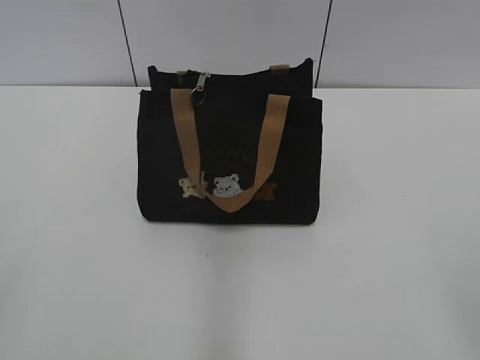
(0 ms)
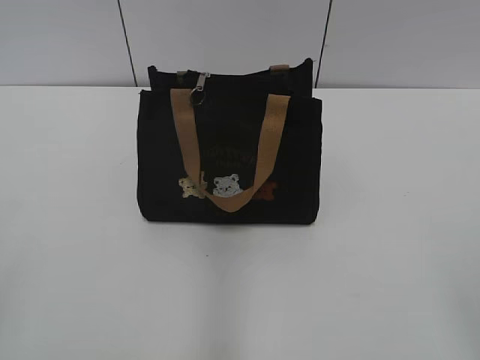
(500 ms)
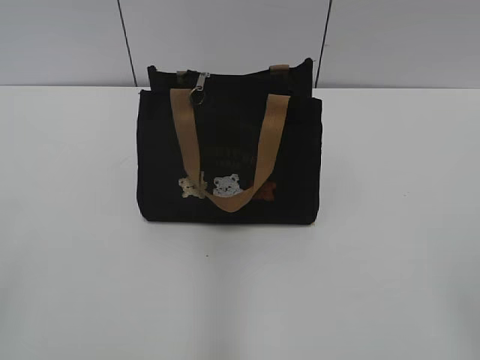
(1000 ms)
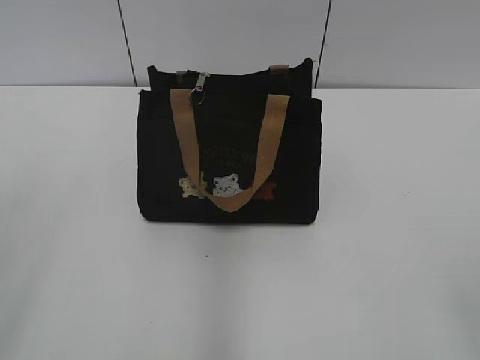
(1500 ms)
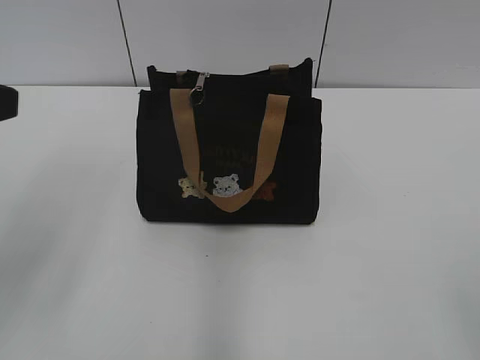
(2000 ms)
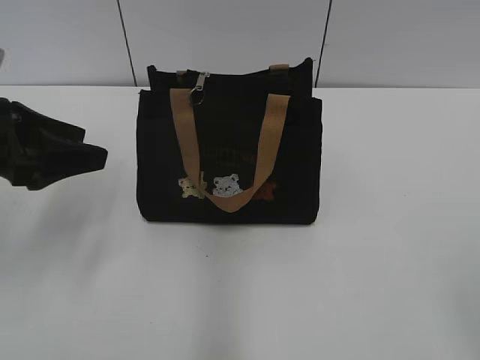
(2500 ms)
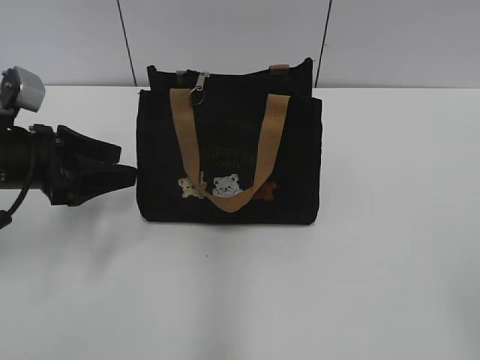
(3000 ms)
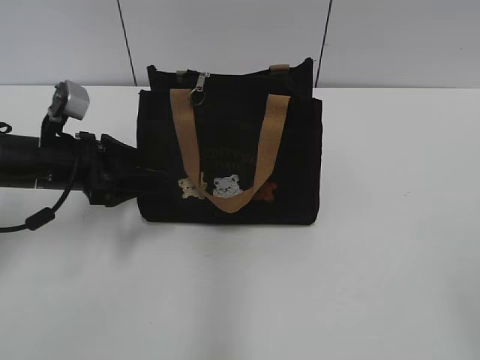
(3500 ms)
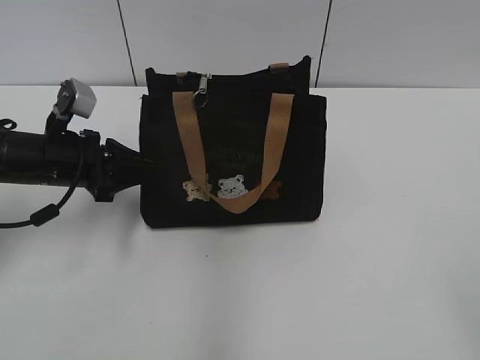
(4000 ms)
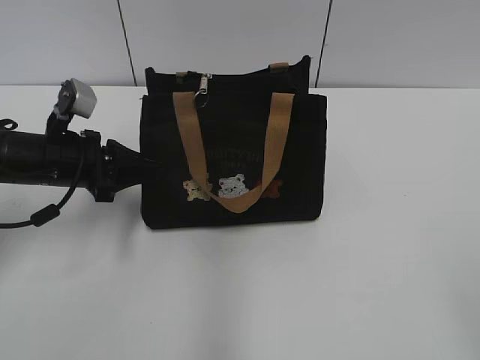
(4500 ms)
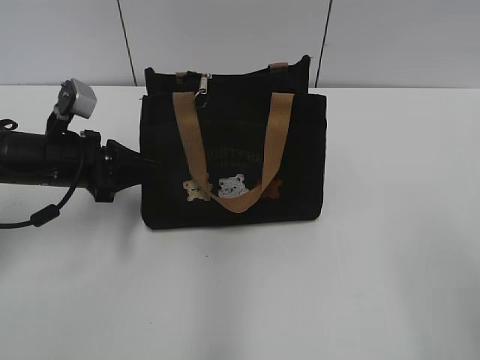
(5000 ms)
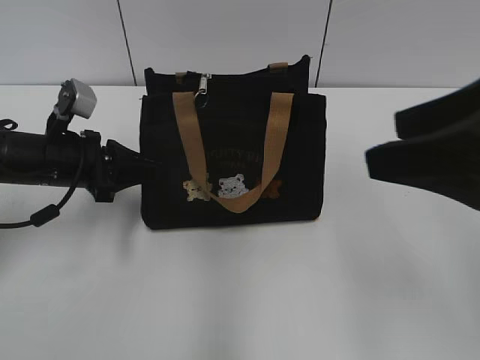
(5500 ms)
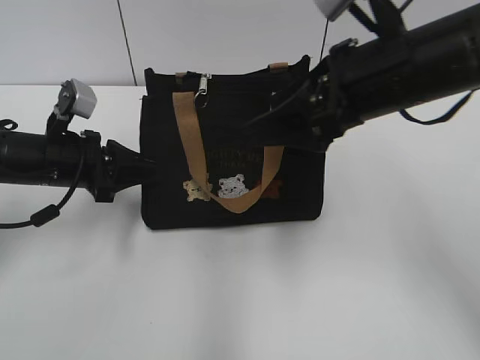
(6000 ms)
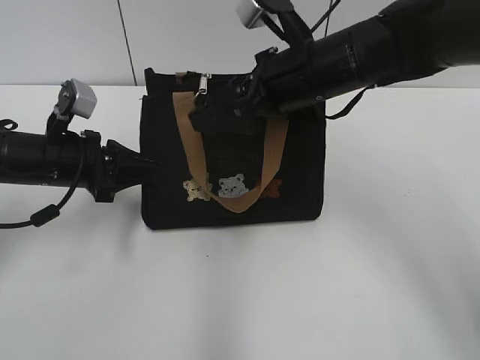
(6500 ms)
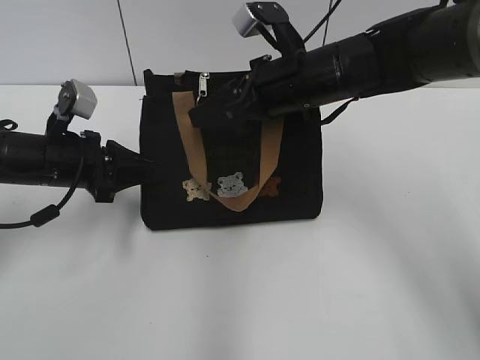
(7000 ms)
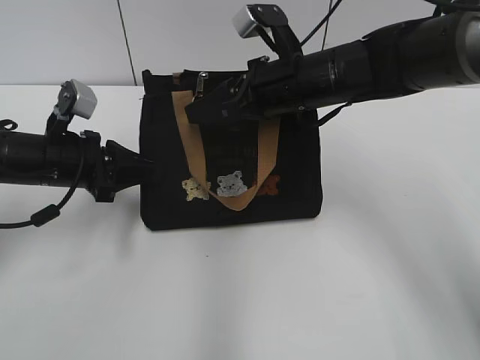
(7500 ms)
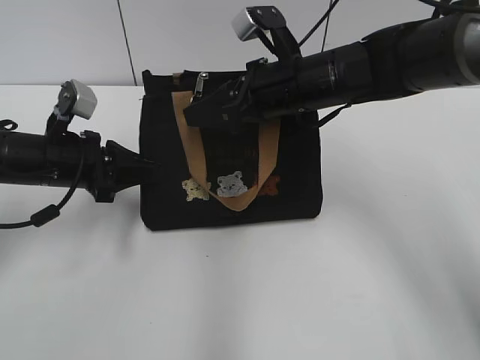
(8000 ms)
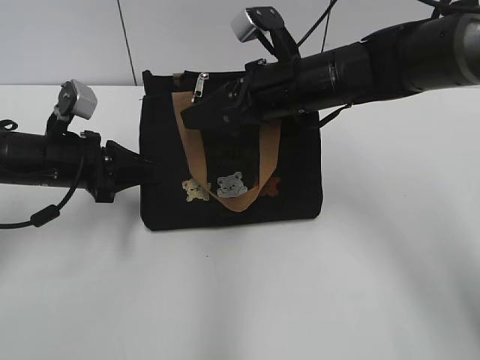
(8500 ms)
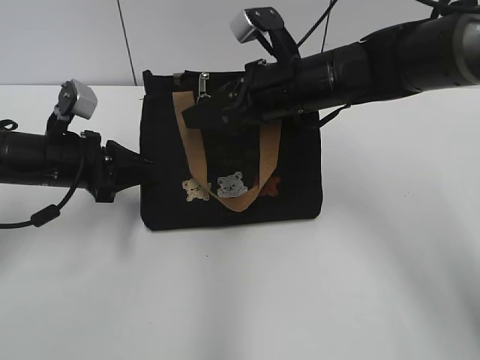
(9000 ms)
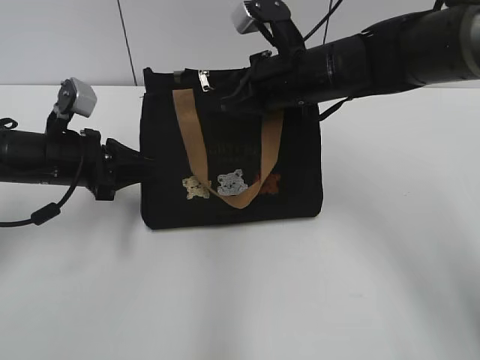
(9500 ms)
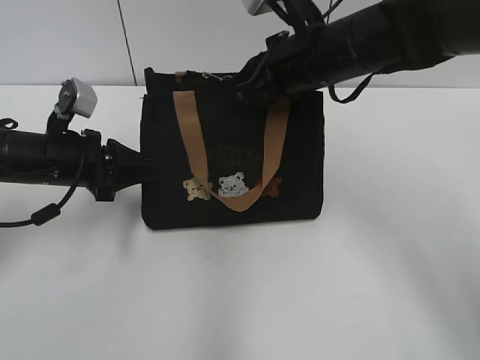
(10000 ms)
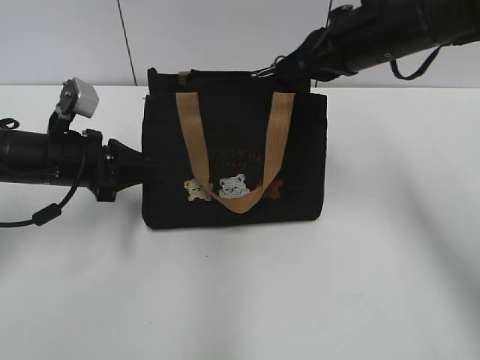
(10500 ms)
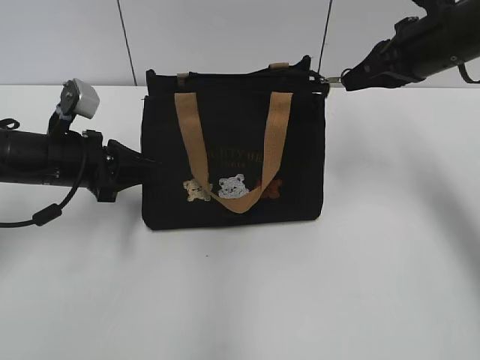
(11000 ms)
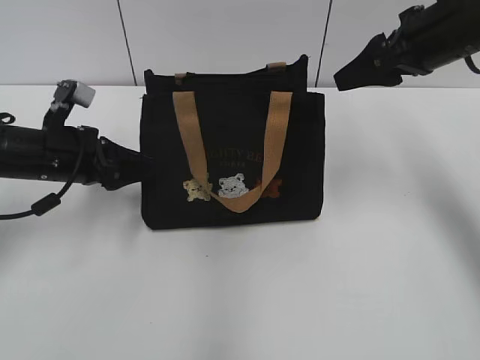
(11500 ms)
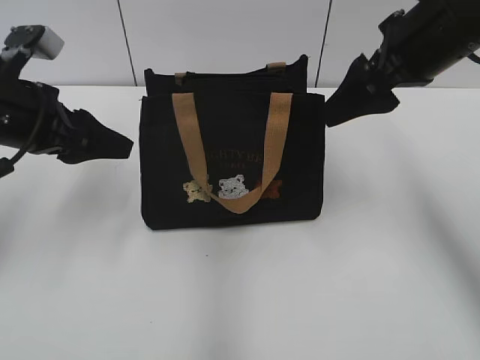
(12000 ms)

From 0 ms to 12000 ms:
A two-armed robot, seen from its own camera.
Step, from 0 ms to 11000 ms: Pull open the zipper with your right hand.
From 2000 ms to 4000 ms: The left gripper is displaced downward and forward by approximately 25 cm, and closes its fingers.
From 4000 ms to 6000 ms: The right gripper shifts approximately 30 cm forward and to the left.
From 6000 ms to 8000 ms: The right gripper is displaced forward, downward and to the left by approximately 15 cm.
From 8000 ms to 10000 ms: The right gripper closes up.
From 10000 ms to 12000 ms: The left gripper shifts roughly 10 cm upward, and opens its fingers, while the right gripper is displaced to the right and upward by roughly 10 cm, and opens.

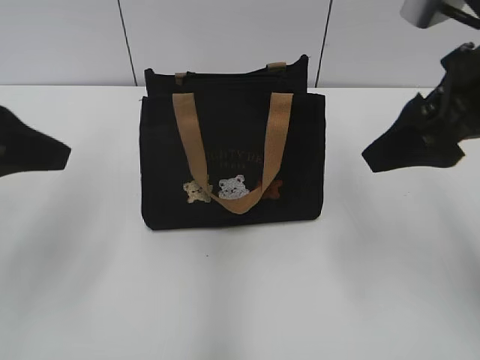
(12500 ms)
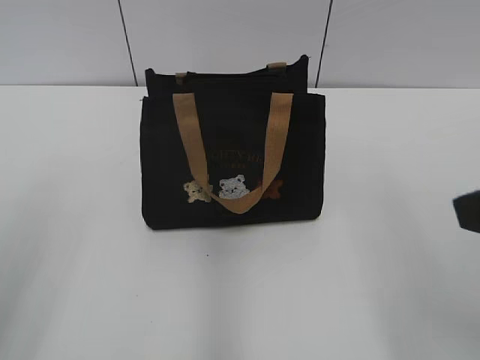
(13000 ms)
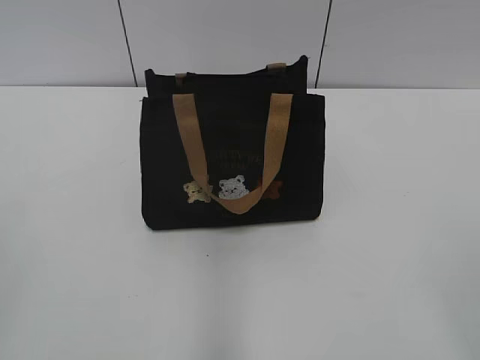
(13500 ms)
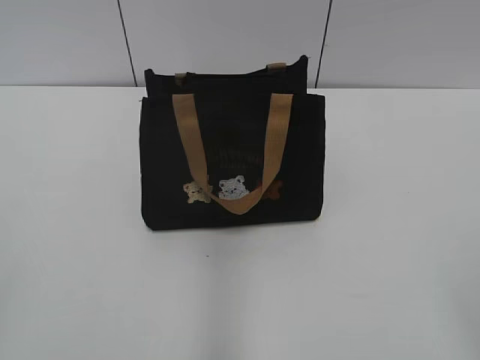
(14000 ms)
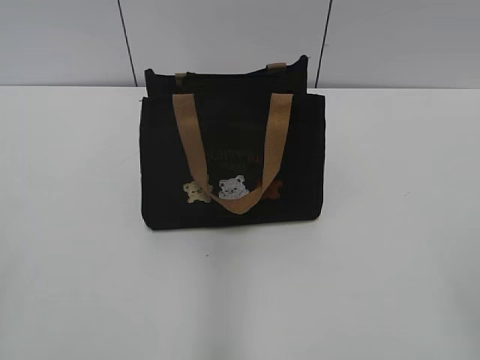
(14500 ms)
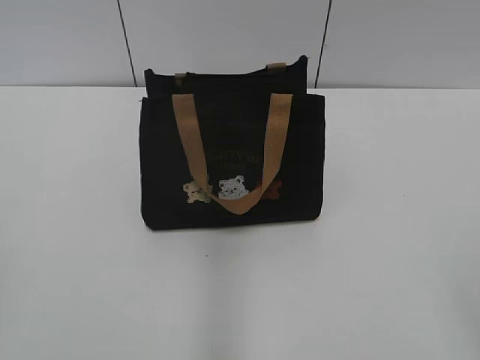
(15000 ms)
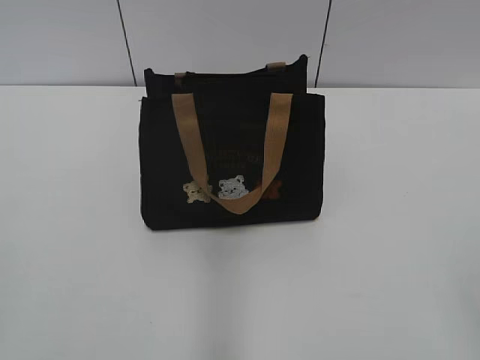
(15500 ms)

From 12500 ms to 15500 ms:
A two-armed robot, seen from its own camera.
From 12500 ms to 14000 ms: The two grippers go approximately 25 cm backward.

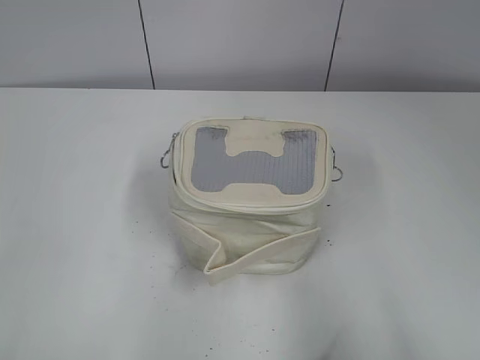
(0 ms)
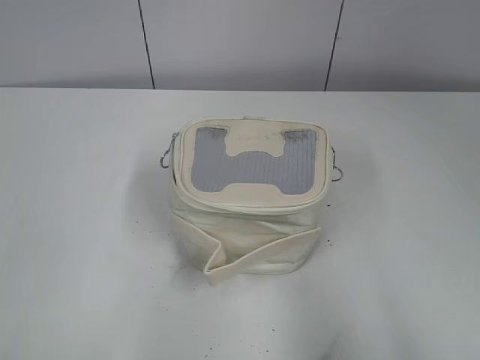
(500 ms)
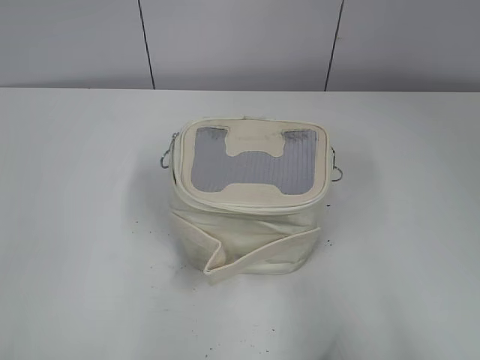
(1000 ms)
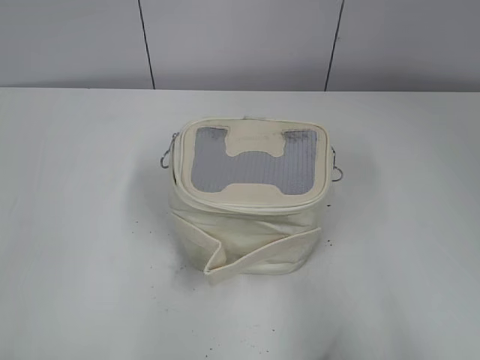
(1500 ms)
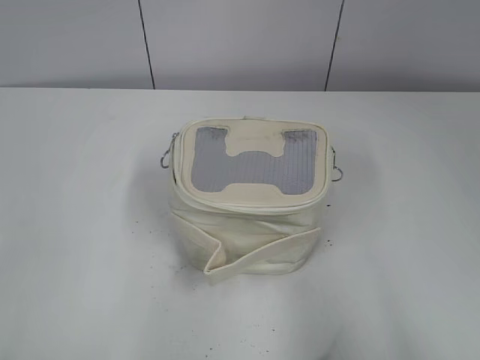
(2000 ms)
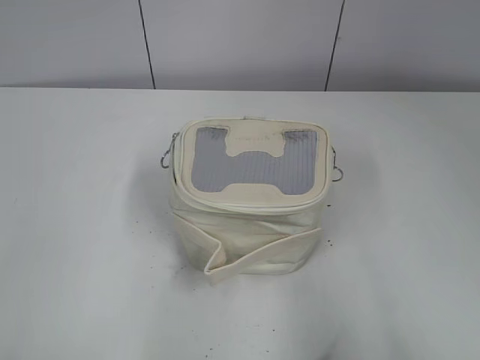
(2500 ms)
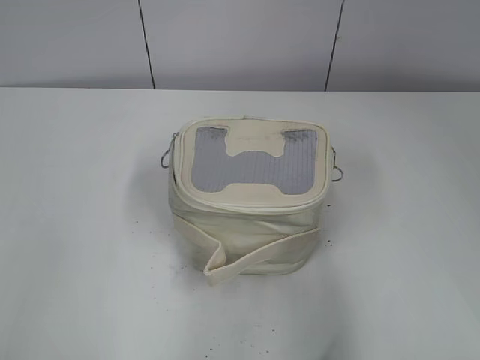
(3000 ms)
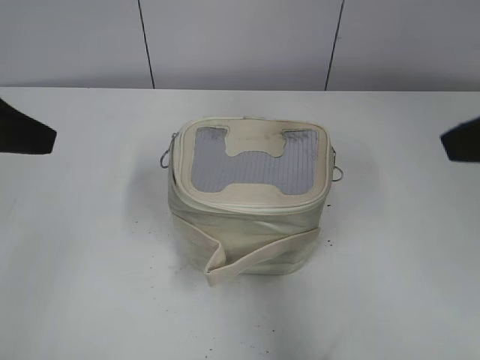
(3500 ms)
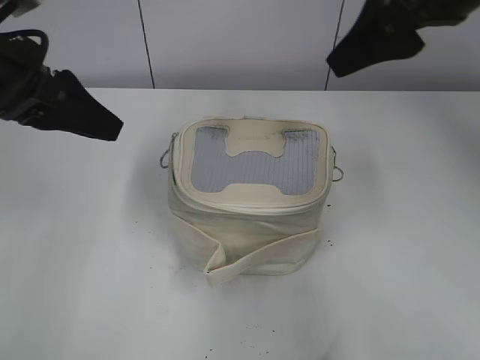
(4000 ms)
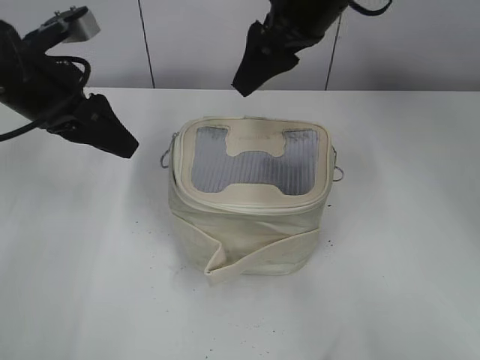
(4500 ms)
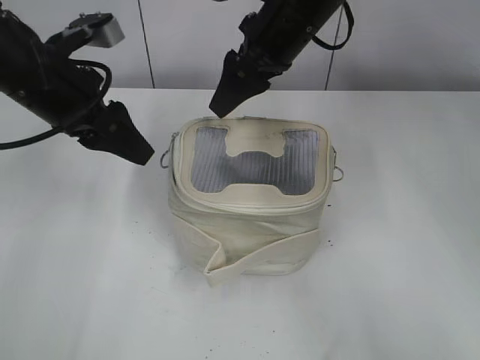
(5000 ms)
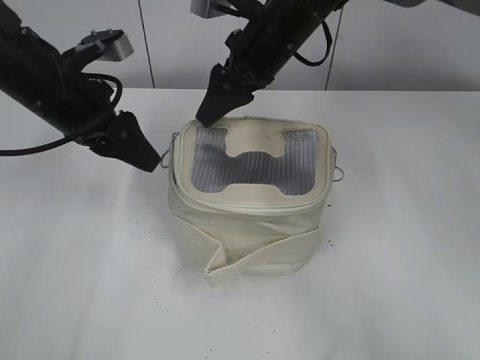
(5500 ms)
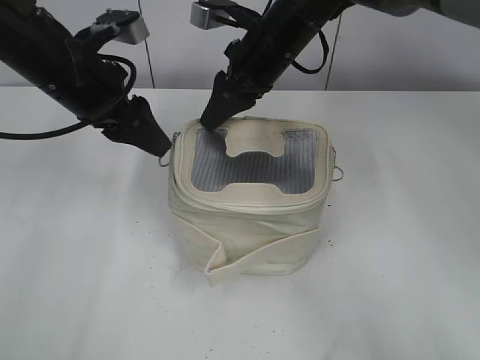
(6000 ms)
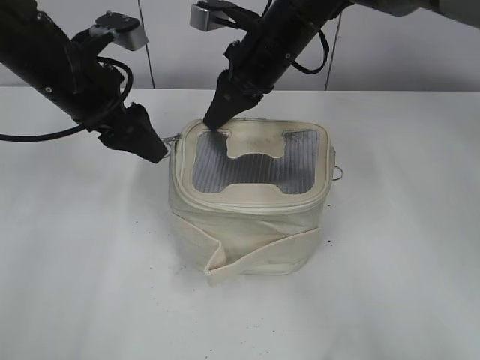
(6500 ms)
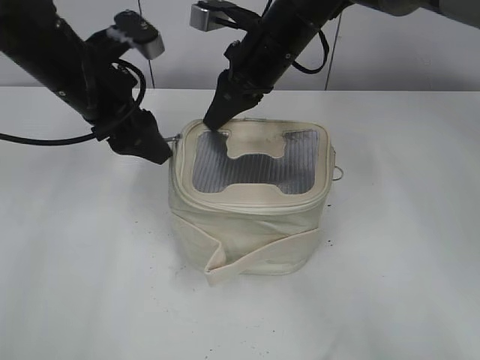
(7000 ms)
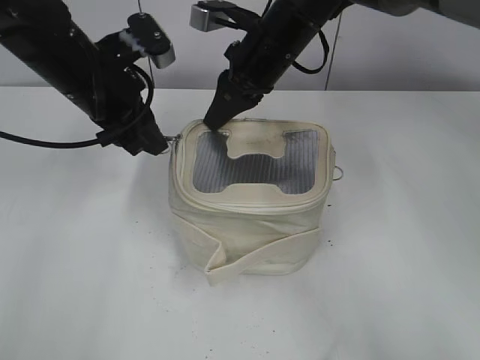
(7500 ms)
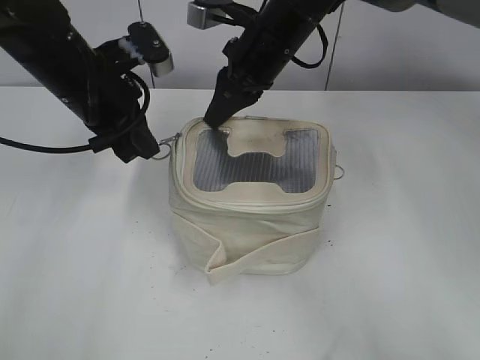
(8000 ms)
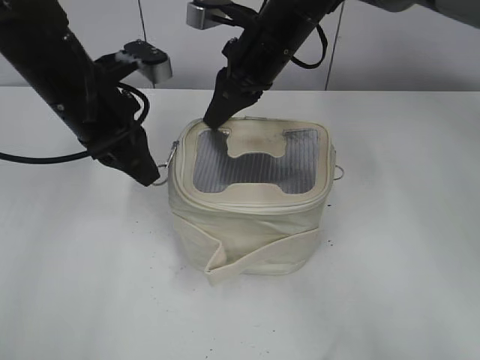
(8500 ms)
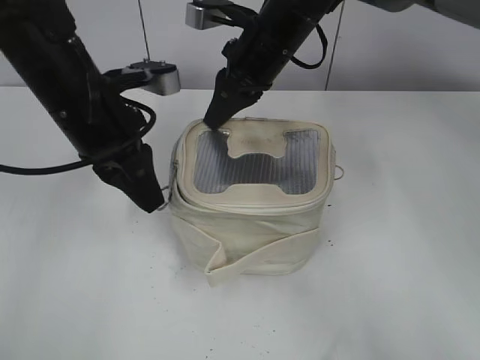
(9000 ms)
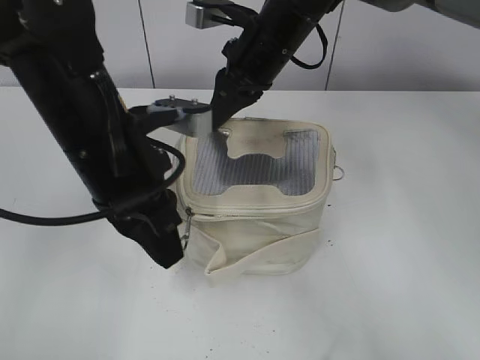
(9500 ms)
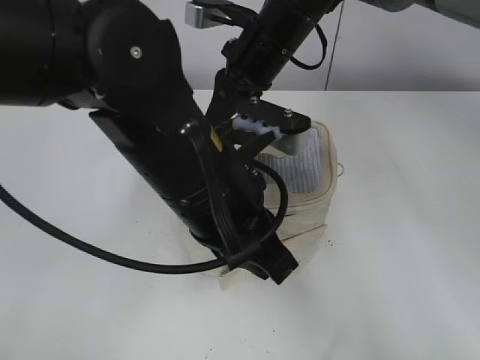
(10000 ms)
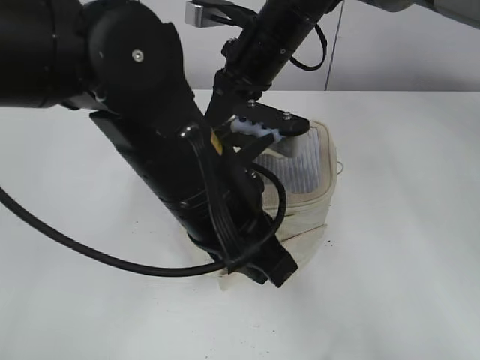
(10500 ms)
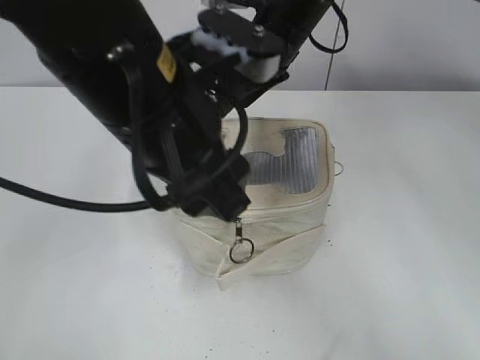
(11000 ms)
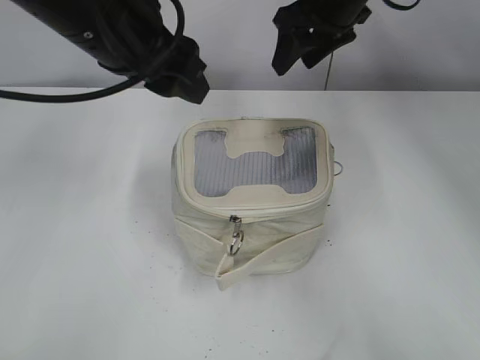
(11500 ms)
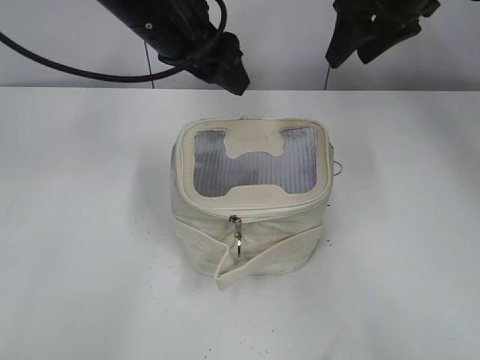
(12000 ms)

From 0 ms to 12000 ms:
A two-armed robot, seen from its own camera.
Step, from 0 ms to 10500 ms: Zip up the bag with your left hand.
From 2000 ms to 4000 ms: The right gripper shifts about 35 cm forward and to the left, while the left gripper heads forward, covering approximately 30 cm.
From 4000 ms to 6000 ms: The right gripper goes about 20 cm downward, to the left and forward, and closes its fingers. The left gripper moves forward and to the right, approximately 10 cm.
From 6000 ms to 8000 ms: The right gripper closes its fingers. The left gripper closes up.
From 8000 ms to 10000 ms: The left gripper travels backward and to the right by approximately 20 cm.
From 10000 ms to 12000 ms: The right gripper is displaced to the right and upward by about 15 cm, and opens up. The left gripper shifts approximately 15 cm forward and upward, and opens.
